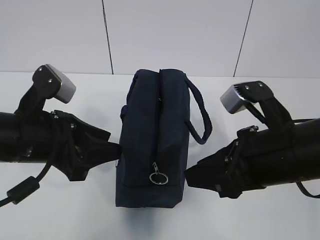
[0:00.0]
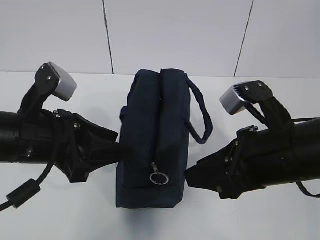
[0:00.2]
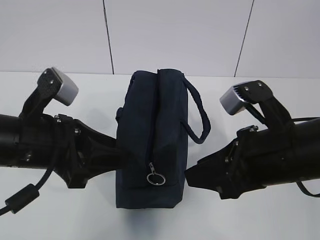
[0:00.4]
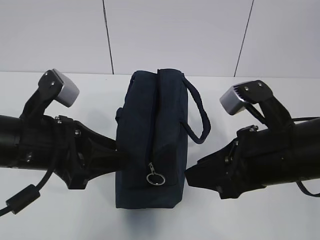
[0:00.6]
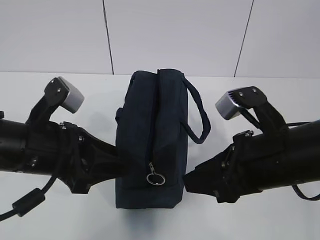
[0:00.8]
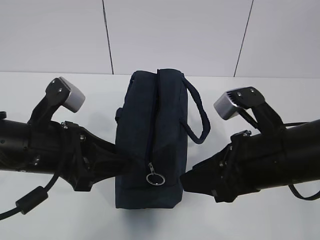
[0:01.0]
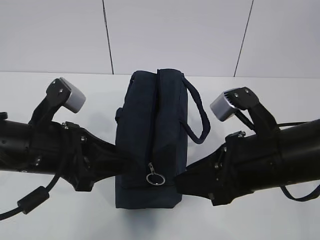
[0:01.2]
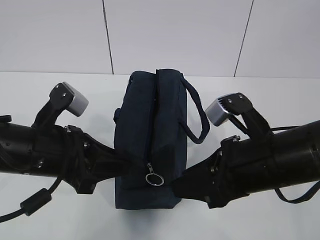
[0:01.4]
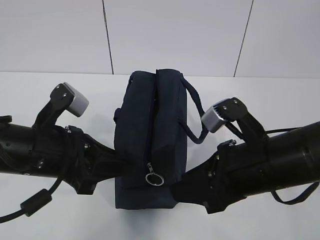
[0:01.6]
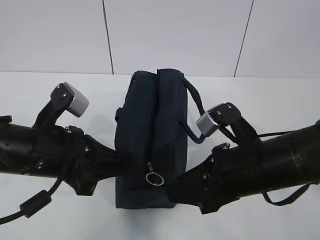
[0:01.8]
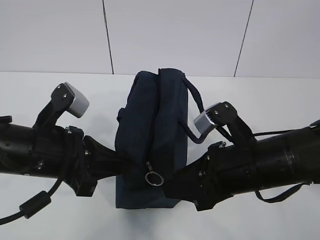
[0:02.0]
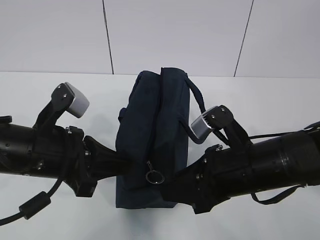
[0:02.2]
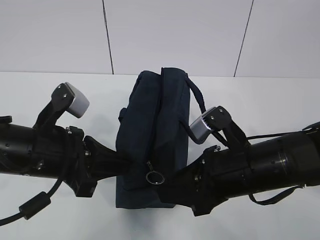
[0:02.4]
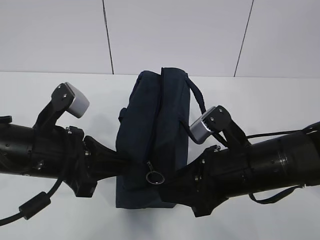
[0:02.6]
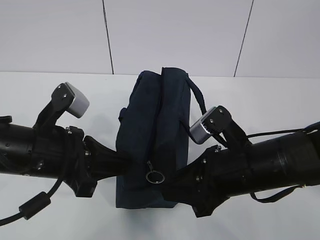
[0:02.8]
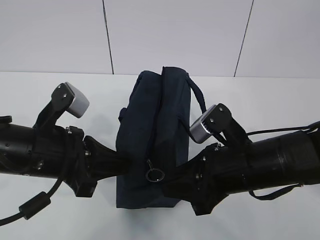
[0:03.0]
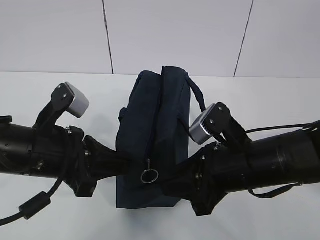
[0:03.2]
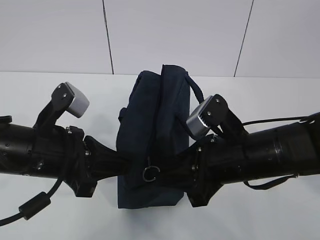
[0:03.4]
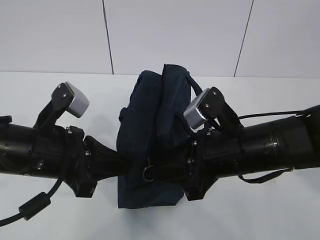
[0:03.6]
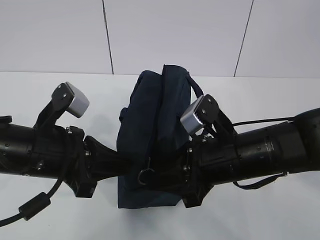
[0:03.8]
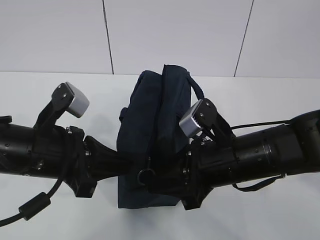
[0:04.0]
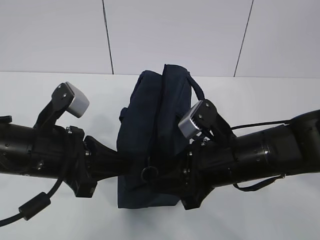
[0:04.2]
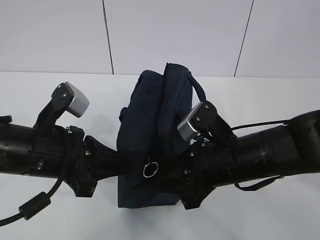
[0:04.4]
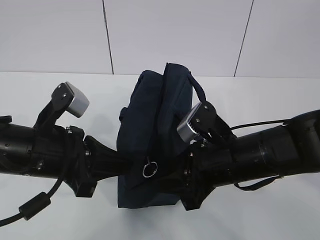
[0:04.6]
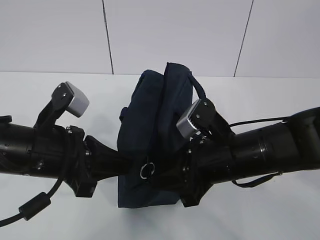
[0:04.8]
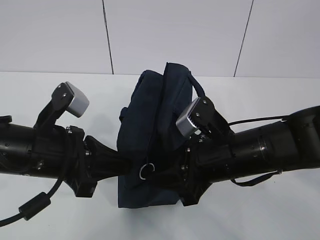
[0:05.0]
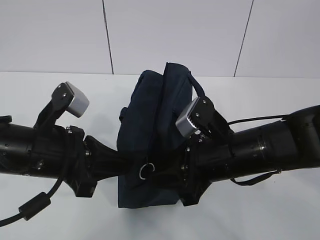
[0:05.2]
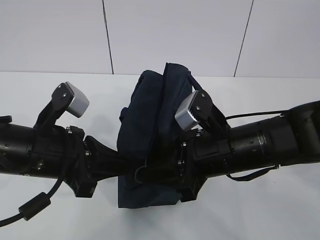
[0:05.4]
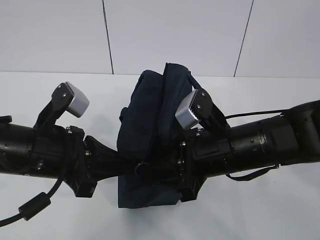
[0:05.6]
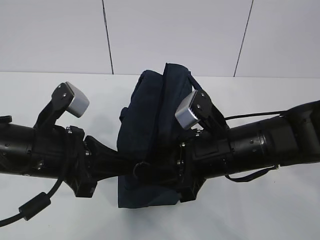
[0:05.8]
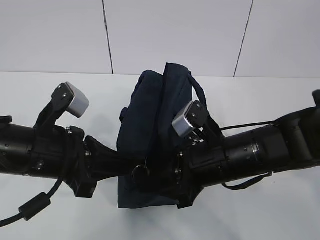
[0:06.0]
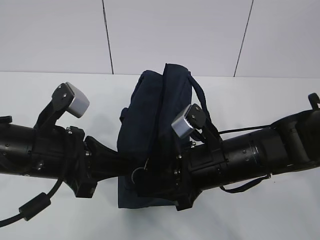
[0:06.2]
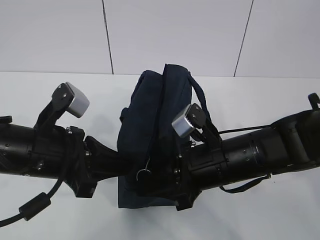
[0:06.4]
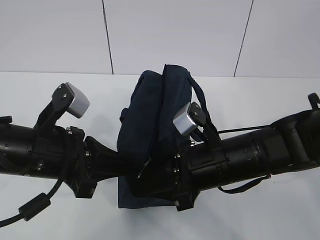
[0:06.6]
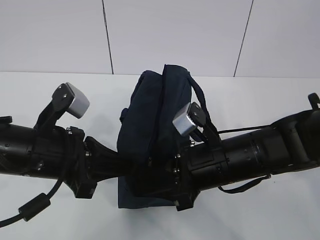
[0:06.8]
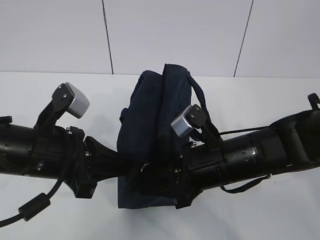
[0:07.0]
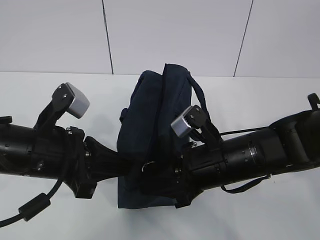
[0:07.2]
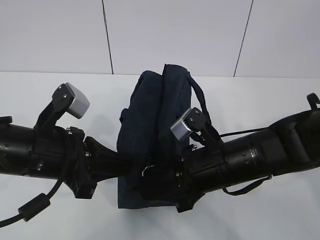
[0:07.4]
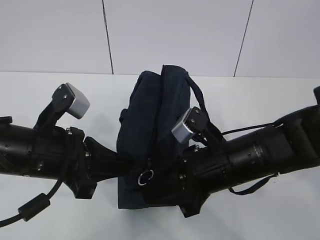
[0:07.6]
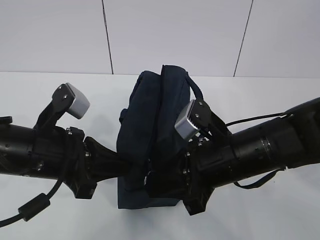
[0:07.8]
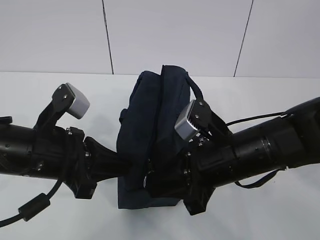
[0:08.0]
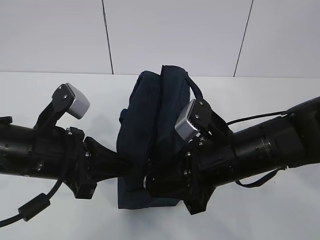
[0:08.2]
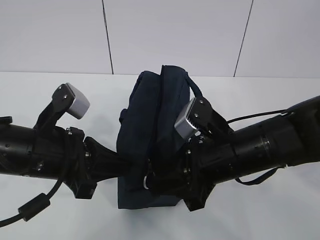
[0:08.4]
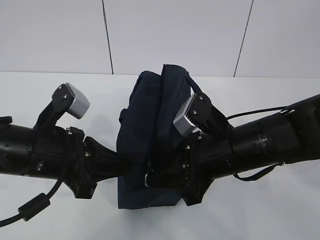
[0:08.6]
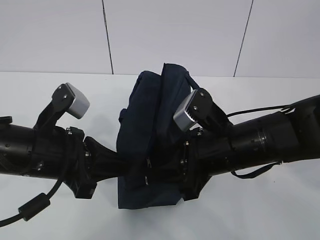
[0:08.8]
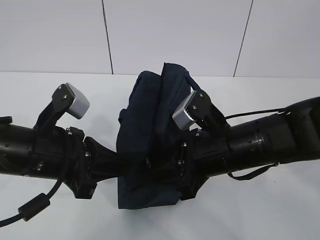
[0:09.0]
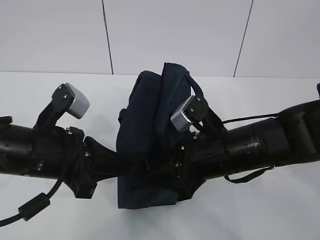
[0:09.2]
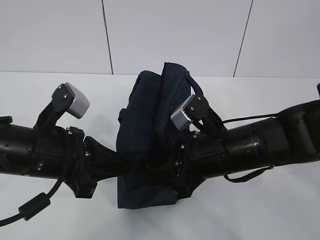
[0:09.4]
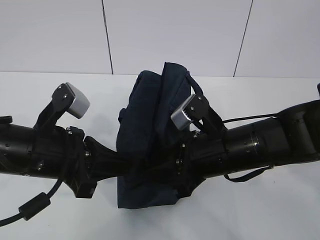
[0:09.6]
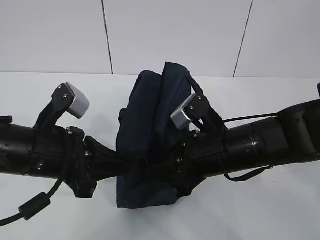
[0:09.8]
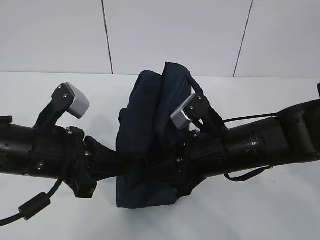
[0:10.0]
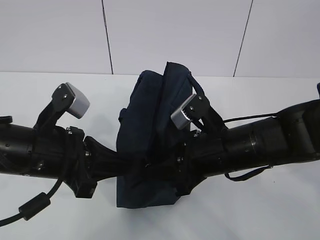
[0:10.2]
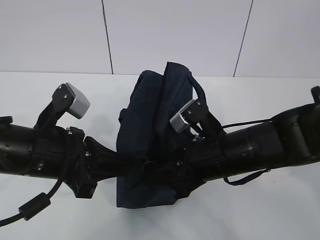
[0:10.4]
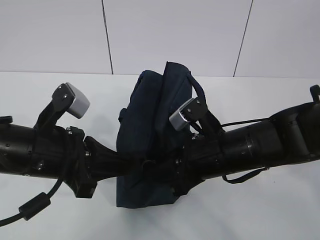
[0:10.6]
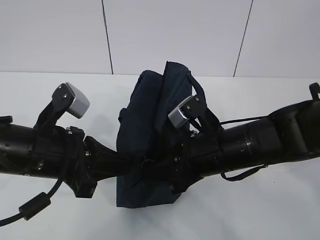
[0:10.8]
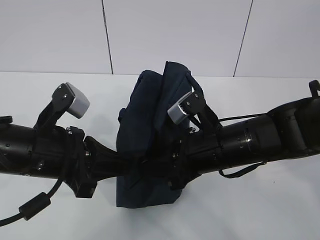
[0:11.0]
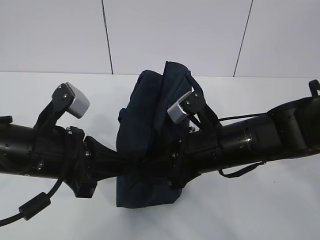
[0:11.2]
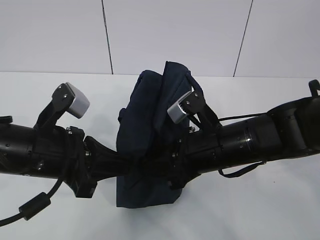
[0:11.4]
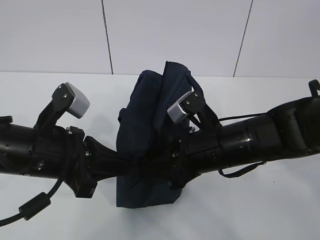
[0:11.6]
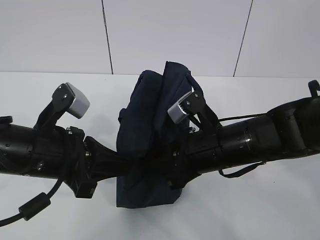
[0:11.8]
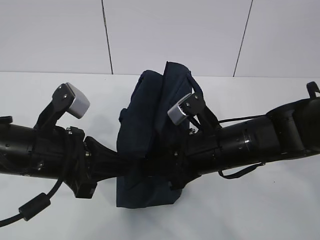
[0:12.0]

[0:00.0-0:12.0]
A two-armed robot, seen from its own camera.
0:00.0 to 0:01.6: The left gripper closes its fingers.
0:01.6 to 0:03.0: The left gripper closes its fingers.
0:03.0 to 0:10.4: The grippers stay close to where they were, moving slightly.
0:10.4 to 0:12.0: The right gripper closes its fingers.

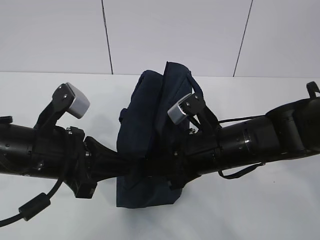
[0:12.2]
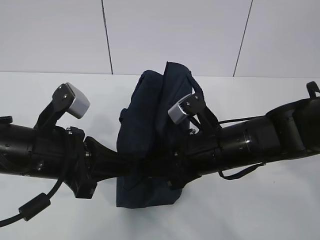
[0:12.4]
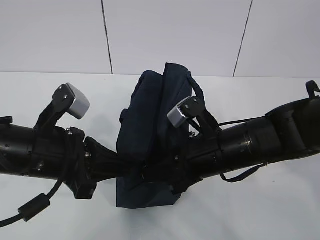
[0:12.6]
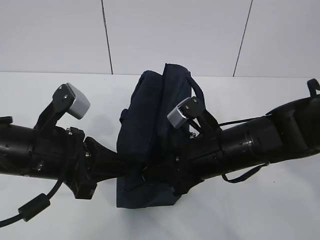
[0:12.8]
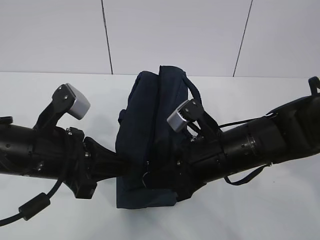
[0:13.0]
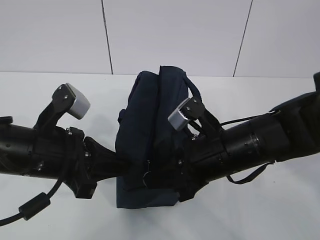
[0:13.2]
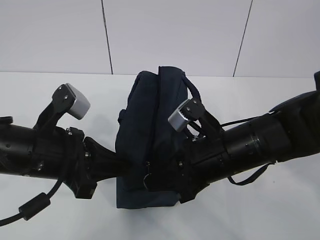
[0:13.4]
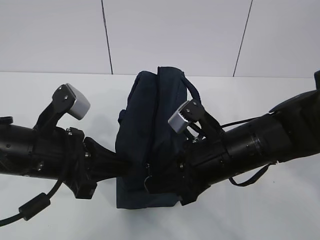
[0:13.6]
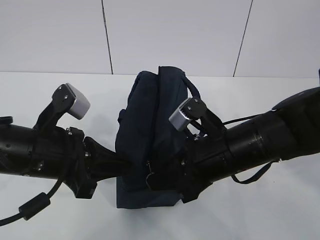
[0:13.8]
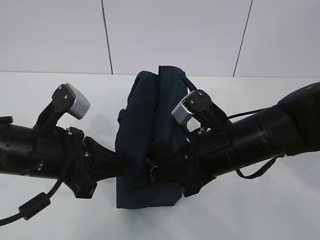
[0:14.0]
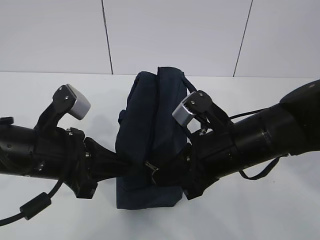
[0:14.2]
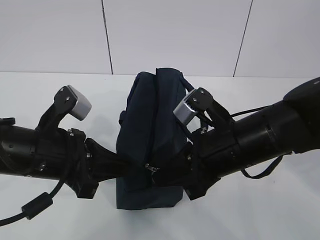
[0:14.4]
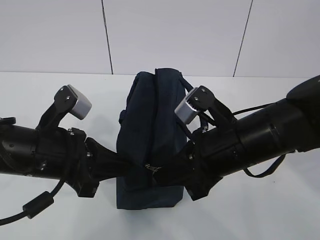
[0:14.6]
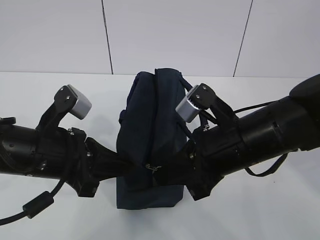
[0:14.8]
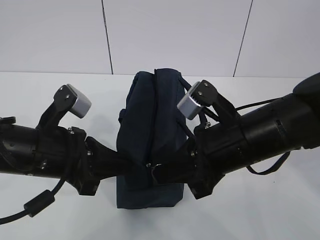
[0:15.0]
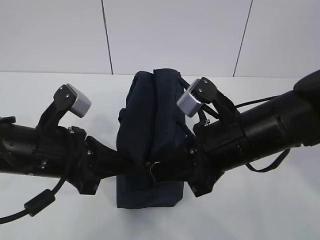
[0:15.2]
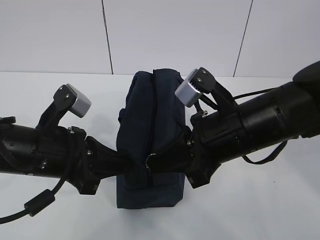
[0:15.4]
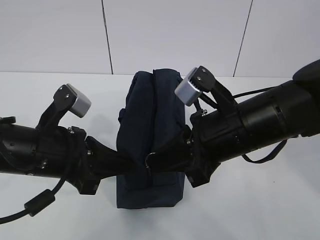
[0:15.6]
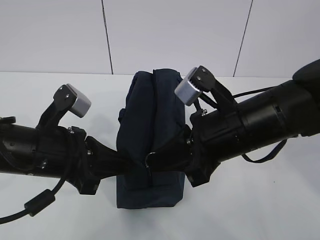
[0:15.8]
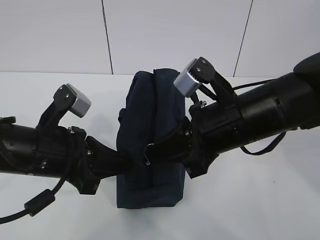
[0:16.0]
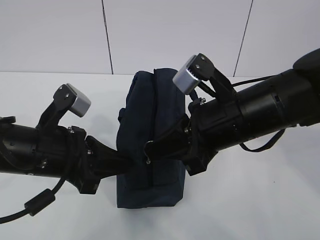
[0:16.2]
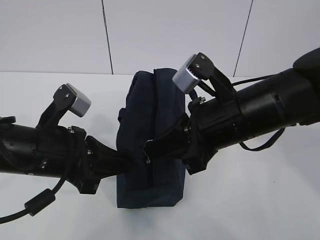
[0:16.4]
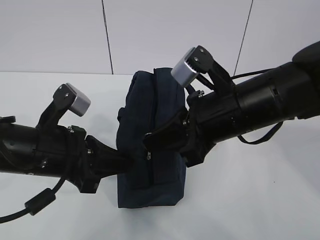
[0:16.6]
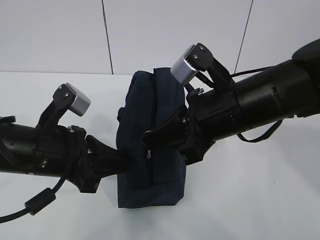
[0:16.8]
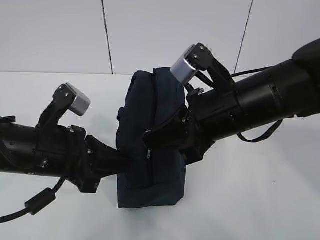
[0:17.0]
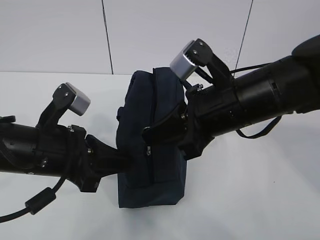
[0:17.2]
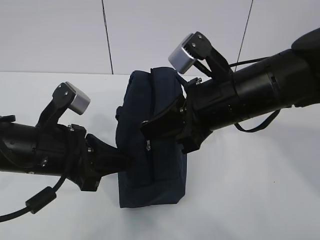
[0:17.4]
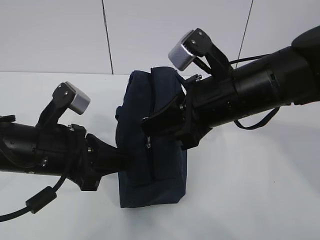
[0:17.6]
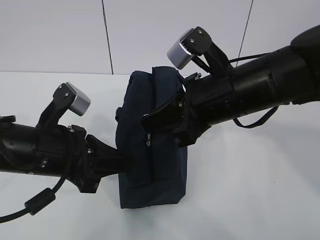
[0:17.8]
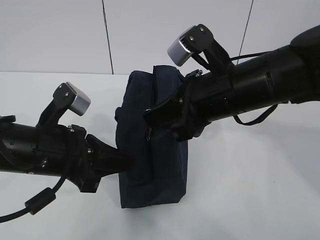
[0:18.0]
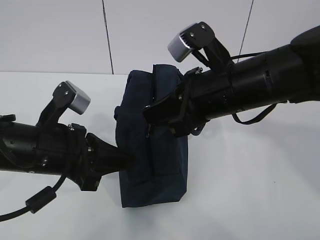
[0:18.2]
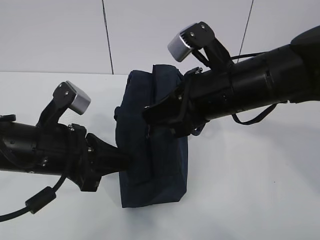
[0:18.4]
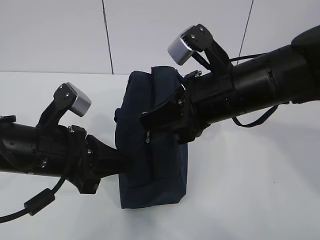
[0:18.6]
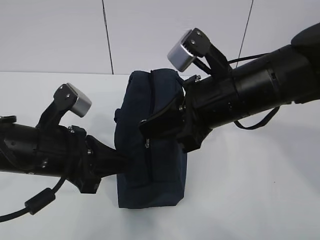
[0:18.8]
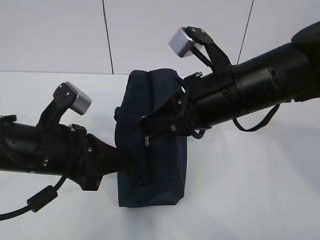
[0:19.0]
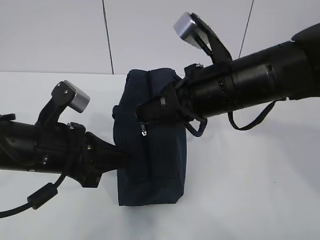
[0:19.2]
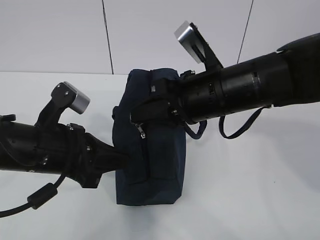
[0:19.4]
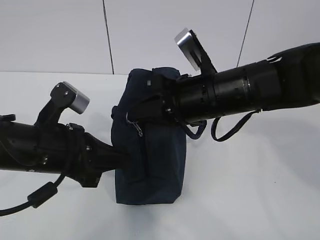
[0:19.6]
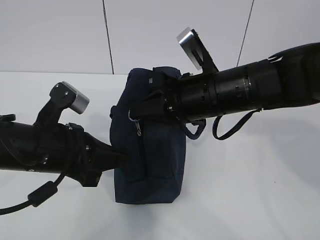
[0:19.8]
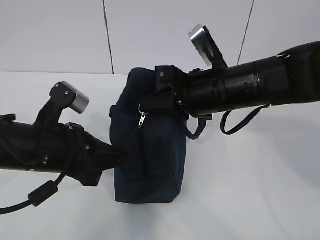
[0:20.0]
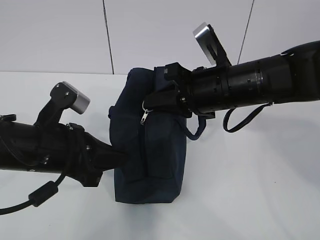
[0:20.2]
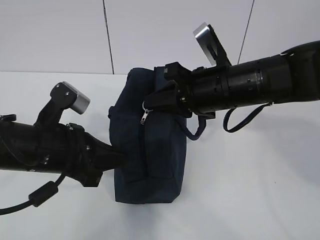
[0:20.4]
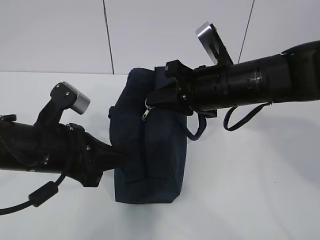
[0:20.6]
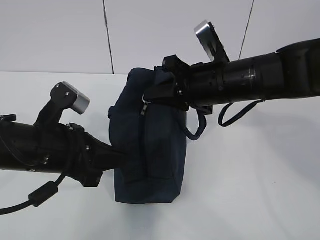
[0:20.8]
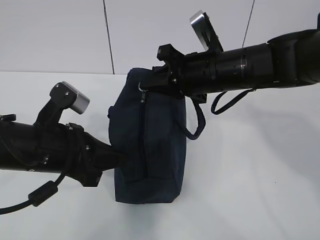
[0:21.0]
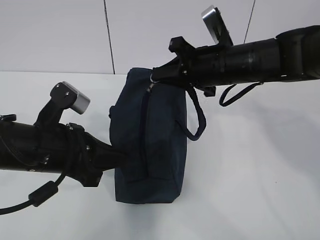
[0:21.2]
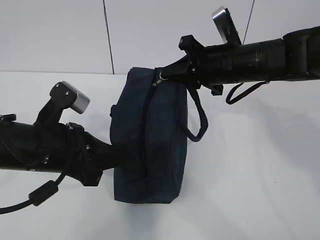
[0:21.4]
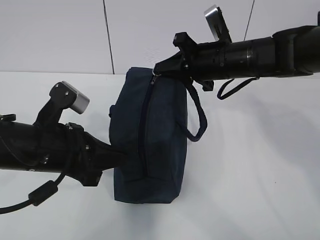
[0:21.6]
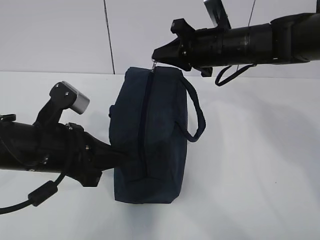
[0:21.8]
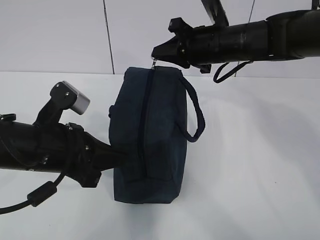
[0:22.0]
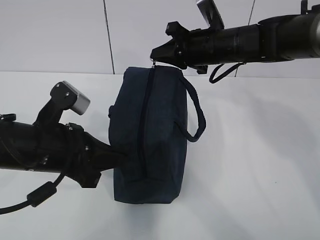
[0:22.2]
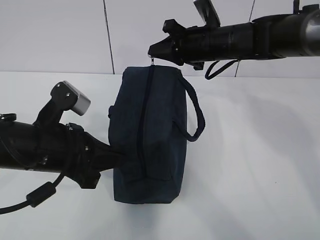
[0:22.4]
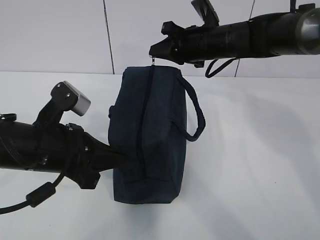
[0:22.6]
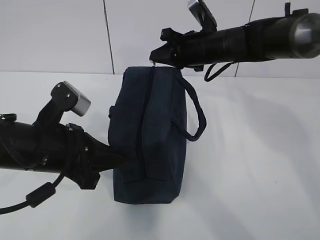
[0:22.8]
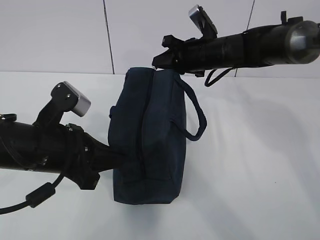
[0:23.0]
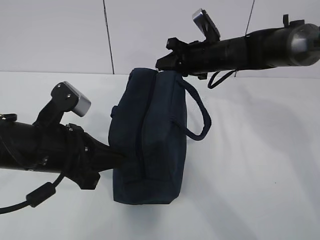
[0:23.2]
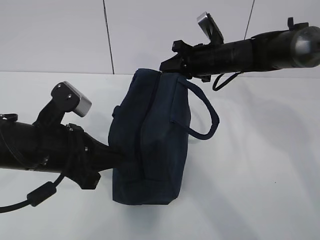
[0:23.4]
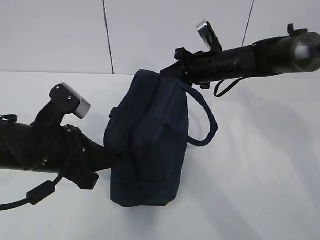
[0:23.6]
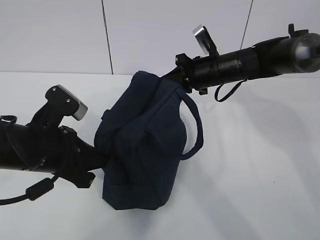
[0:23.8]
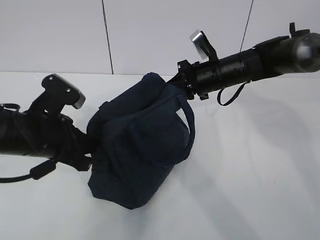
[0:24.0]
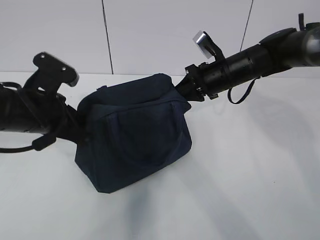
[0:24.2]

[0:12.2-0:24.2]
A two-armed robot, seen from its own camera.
0:12.2 to 0:15.2: The grippers move only a little.
0:15.2 to 0:18.2: There are only small adjustments of the grippers.
0:19.8 to 0:21.2: The right gripper moves forward, some 5 cm.
0:21.2 to 0:22.6: The right gripper shifts approximately 10 cm forward.
0:22.6 to 0:24.2: The right gripper moves downward, approximately 5 cm. Meanwhile the left gripper moves forward, about 5 cm.
